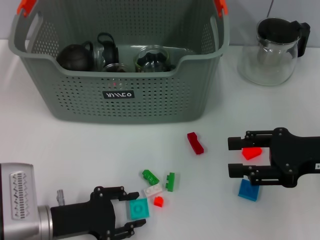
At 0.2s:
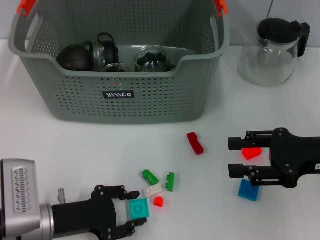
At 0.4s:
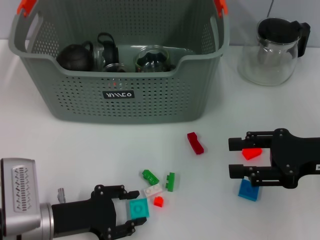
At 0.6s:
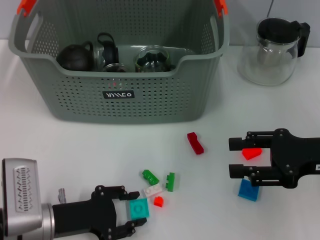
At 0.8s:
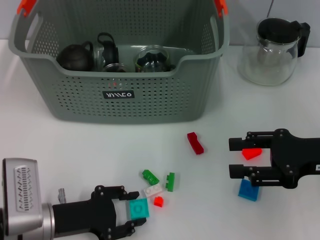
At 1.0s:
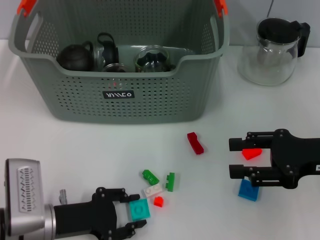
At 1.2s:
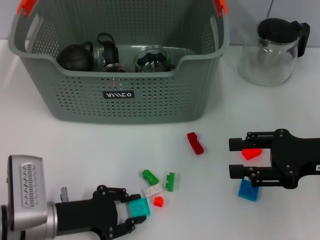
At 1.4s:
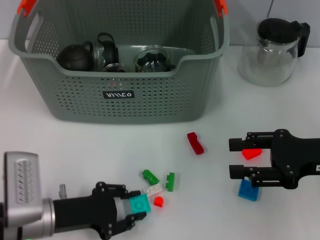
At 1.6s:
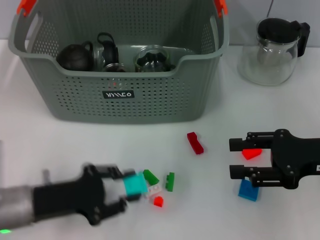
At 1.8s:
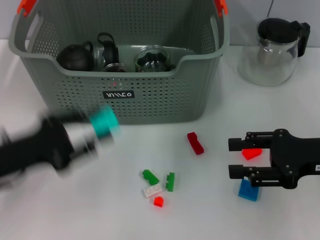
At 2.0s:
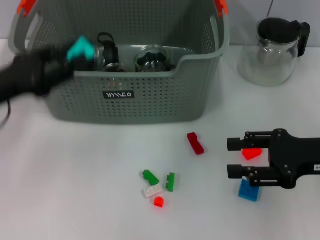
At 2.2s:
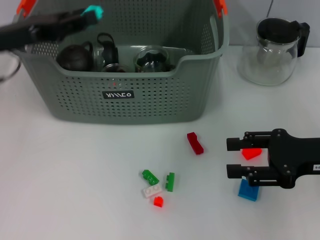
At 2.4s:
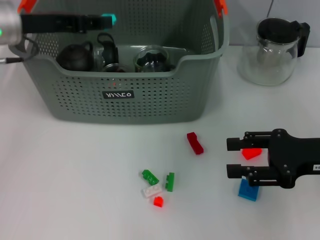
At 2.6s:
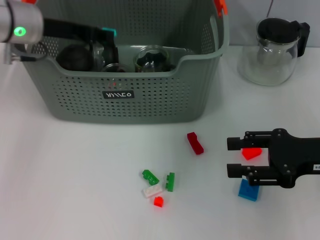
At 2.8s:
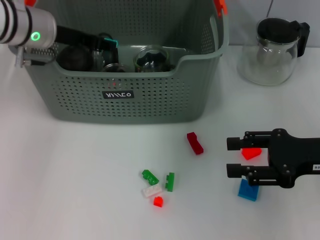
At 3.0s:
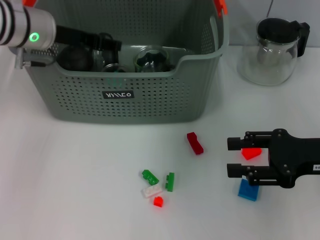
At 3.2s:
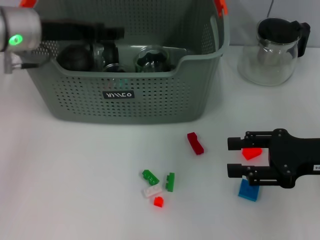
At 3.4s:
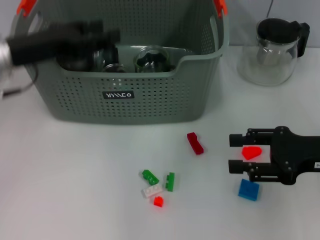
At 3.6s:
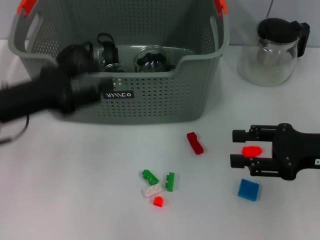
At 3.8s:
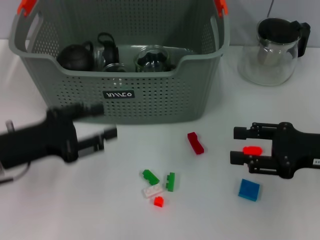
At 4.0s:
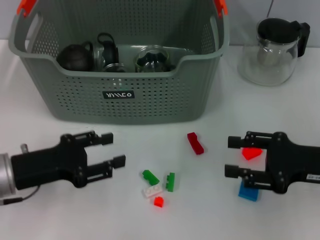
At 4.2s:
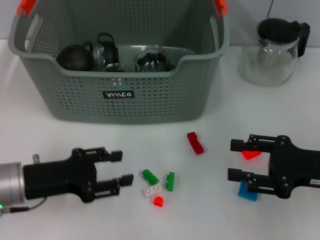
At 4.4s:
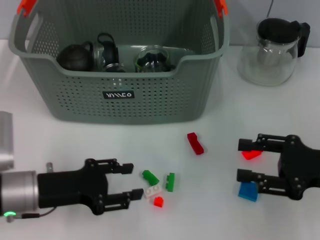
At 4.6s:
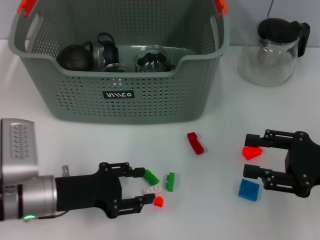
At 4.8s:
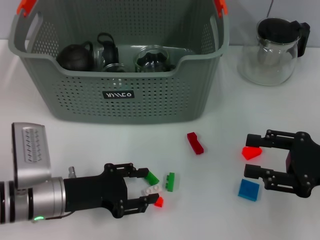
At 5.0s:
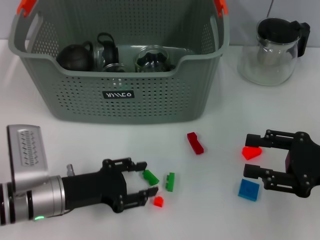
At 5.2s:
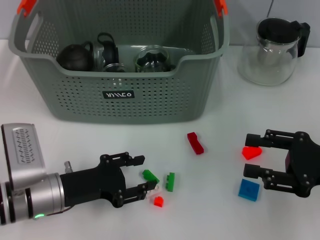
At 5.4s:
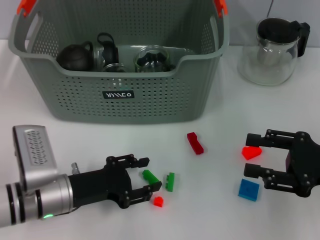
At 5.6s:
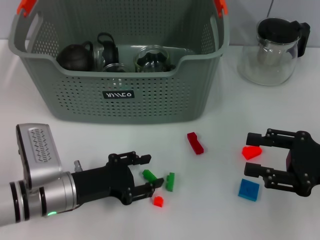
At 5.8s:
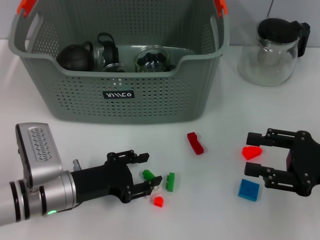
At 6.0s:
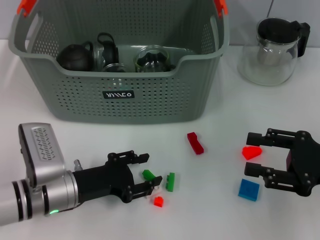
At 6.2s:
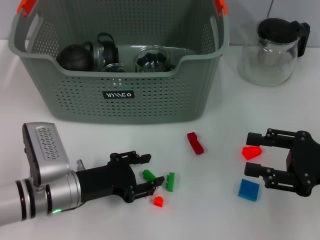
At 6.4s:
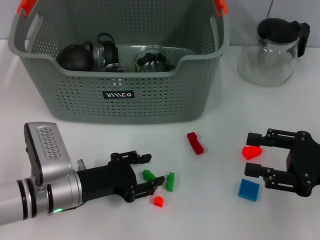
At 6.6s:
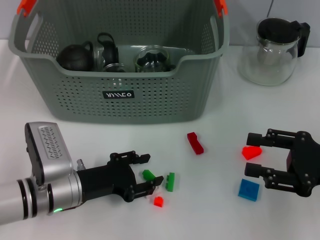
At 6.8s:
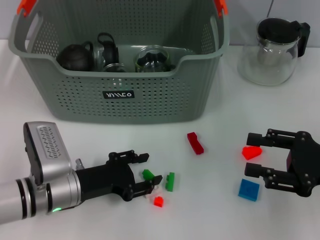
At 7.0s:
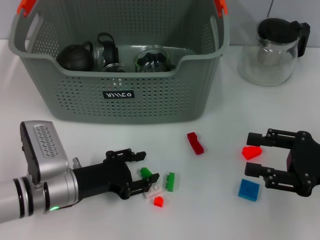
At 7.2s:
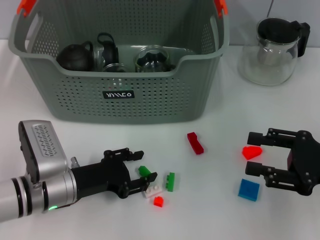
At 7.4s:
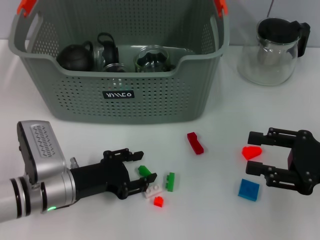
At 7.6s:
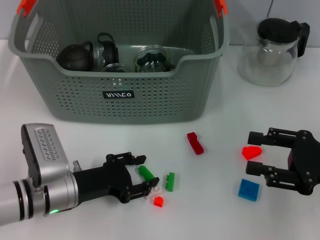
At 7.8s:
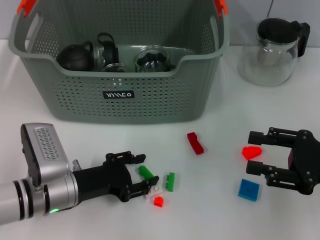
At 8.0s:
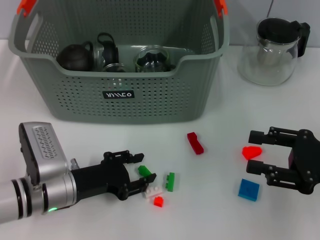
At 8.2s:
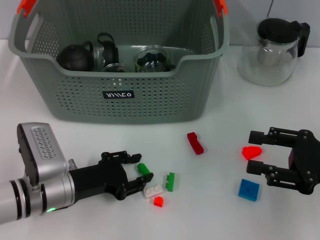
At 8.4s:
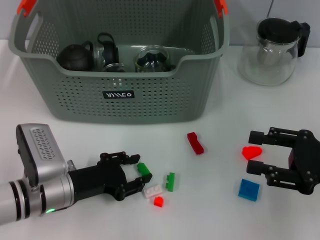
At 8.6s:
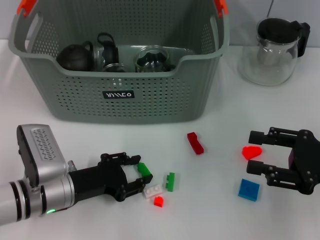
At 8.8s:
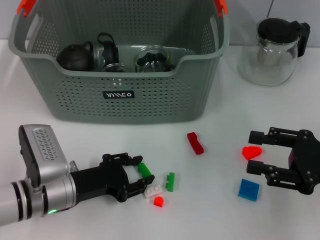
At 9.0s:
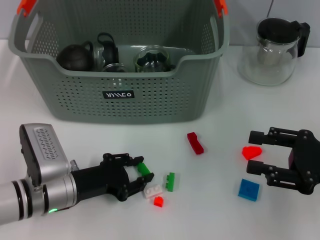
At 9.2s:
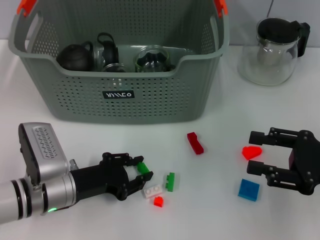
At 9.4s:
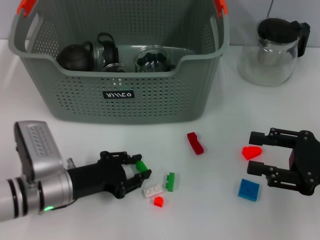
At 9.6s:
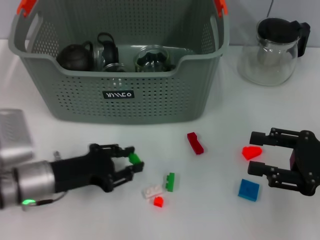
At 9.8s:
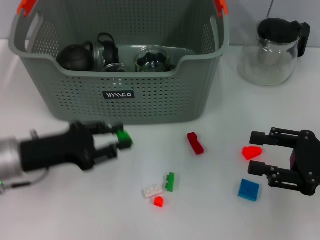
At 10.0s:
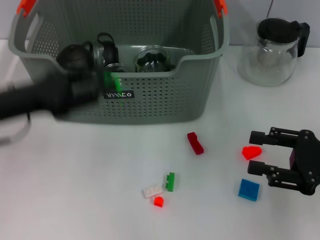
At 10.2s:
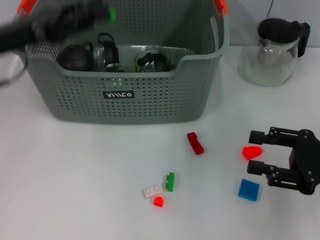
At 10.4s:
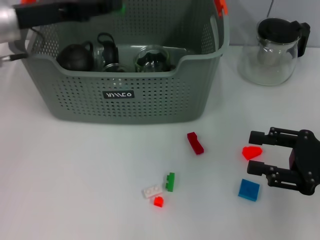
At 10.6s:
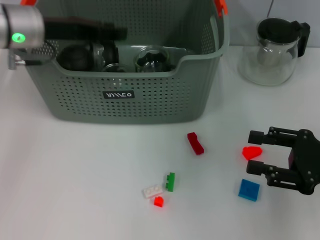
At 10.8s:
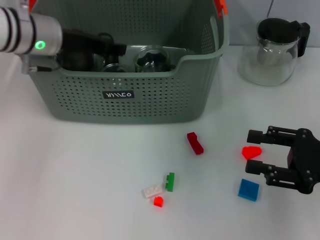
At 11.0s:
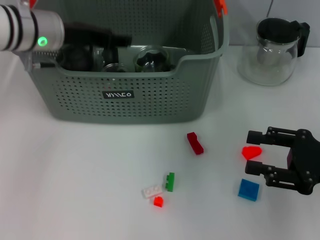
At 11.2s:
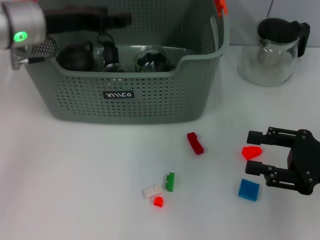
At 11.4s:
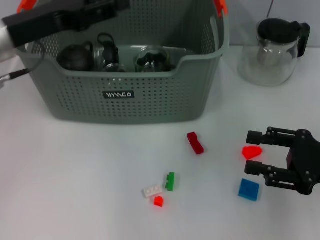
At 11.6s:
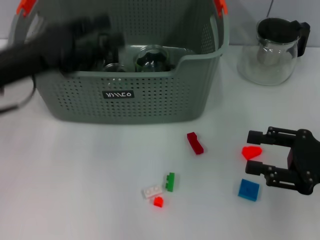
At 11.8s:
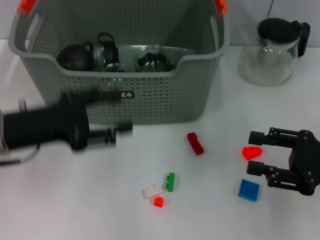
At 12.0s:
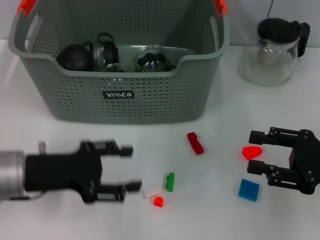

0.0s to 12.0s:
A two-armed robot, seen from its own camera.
Task of the whole recording: pick up the teacup on the table and place it into the storage bin, pick up the block on the table and place it into the storage bin.
Step, 1.4s to 3.4s: Place the light blue block in the storage box with left gripper.
Step, 3.6s to 9.2s: Grasp the green block with left gripper.
Step, 9.4s to 11.2s: Place the green block in the storage box with left gripper.
0.0s to 1.6s: There are only small adjustments of the grippers.
1.6s to 3.0s: The left gripper goes approximately 25 cm forward and upward.
3.0s to 4.4s: The left gripper goes some 20 cm backward and downward.
4.4s to 6.0s: The left gripper changes place by roughly 5 cm.
6.0s to 9.0s: Both grippers stay put.
9.0s to 10.4s: The left gripper moves upward and forward, approximately 25 cm.
10.4s to 12.0s: The left gripper is displaced backward and downward by approximately 15 cm, and opens its fingers.

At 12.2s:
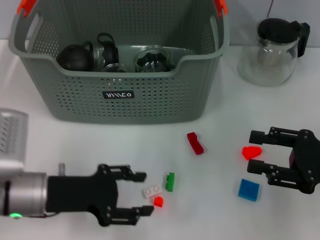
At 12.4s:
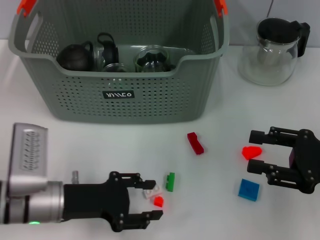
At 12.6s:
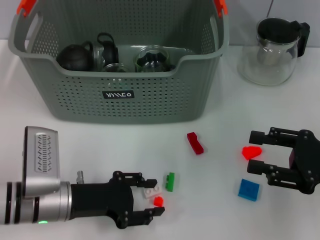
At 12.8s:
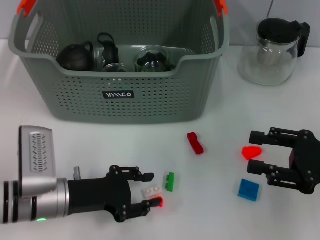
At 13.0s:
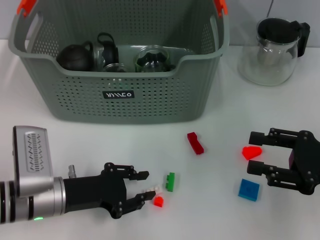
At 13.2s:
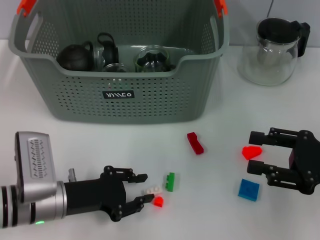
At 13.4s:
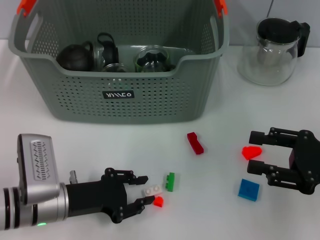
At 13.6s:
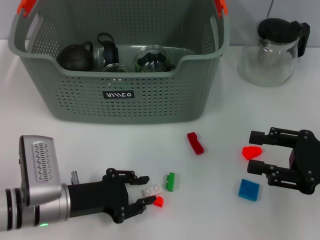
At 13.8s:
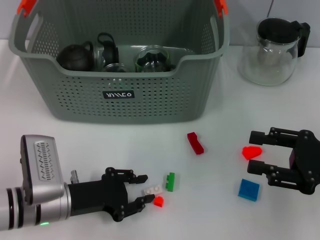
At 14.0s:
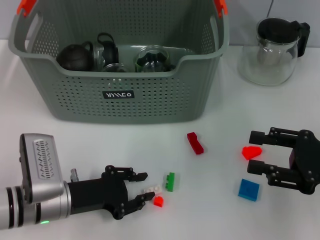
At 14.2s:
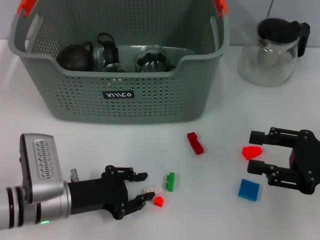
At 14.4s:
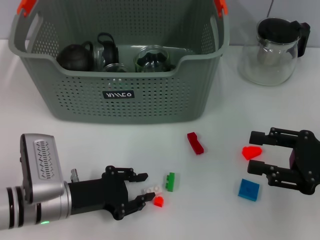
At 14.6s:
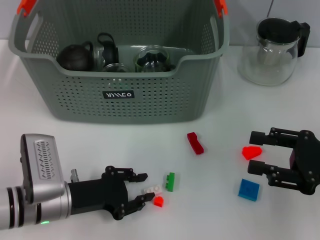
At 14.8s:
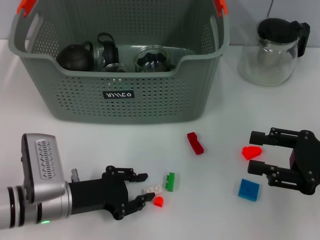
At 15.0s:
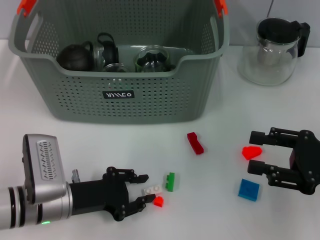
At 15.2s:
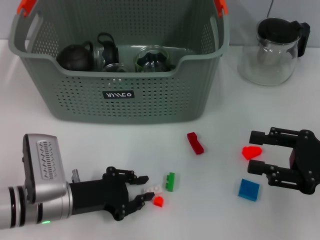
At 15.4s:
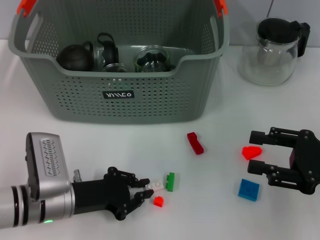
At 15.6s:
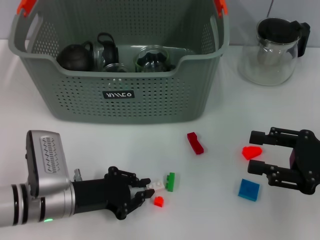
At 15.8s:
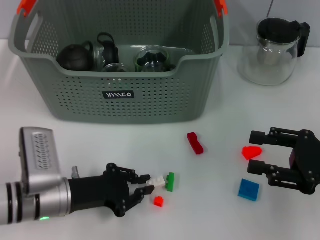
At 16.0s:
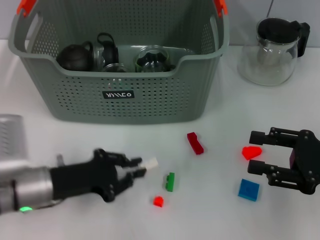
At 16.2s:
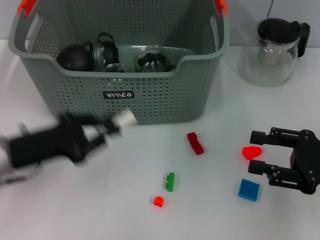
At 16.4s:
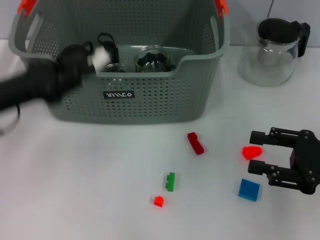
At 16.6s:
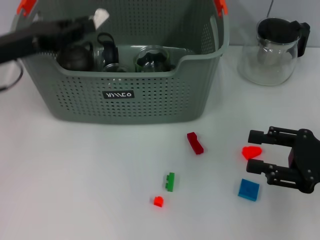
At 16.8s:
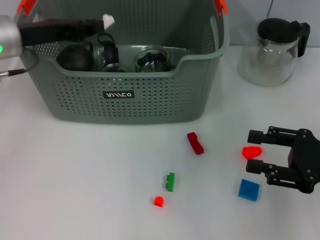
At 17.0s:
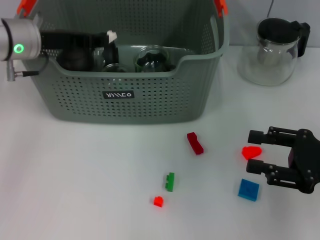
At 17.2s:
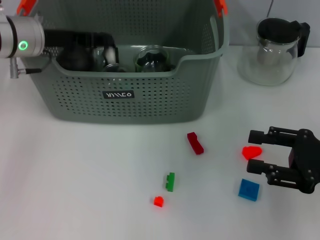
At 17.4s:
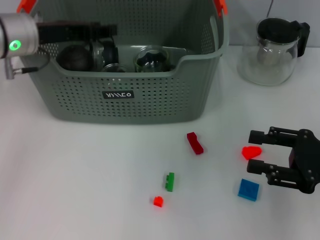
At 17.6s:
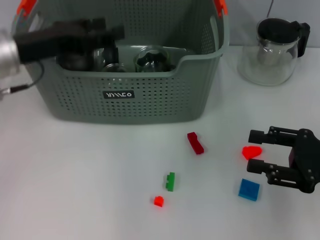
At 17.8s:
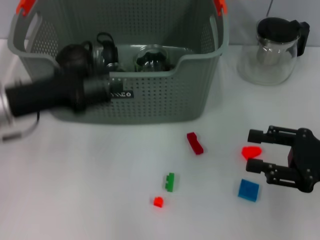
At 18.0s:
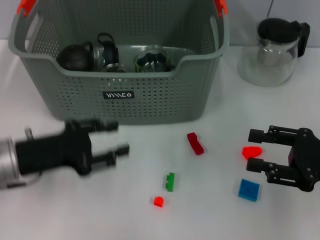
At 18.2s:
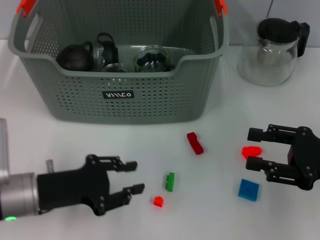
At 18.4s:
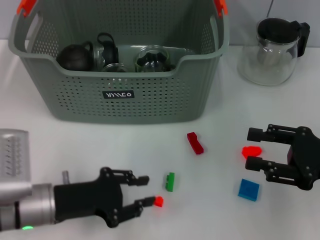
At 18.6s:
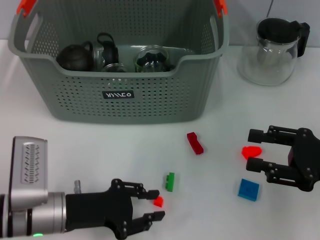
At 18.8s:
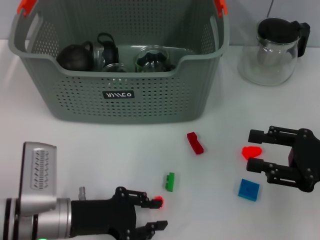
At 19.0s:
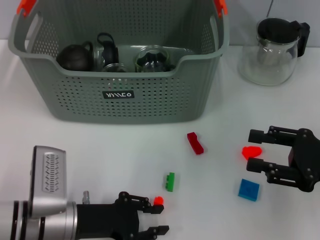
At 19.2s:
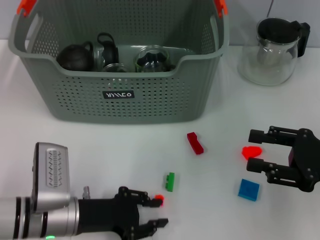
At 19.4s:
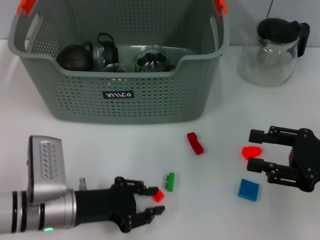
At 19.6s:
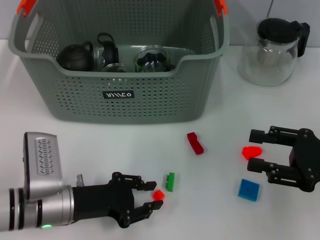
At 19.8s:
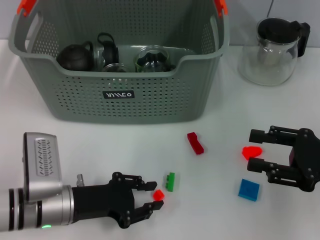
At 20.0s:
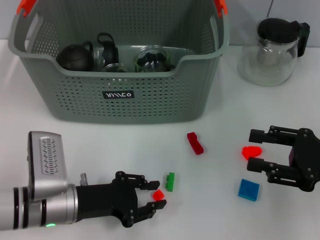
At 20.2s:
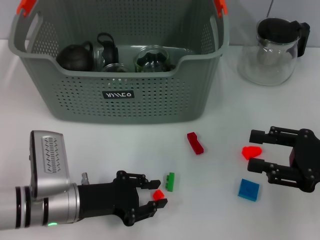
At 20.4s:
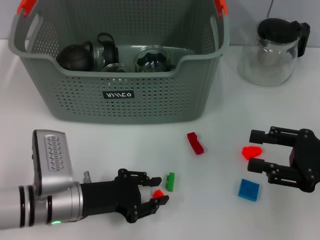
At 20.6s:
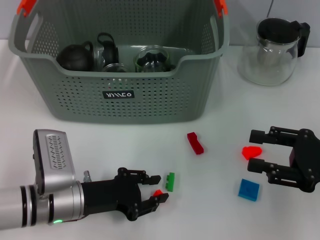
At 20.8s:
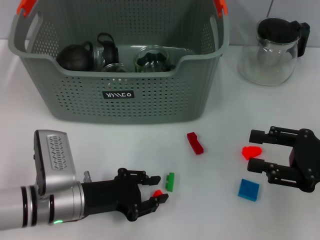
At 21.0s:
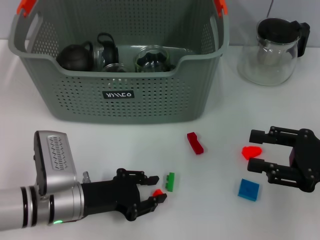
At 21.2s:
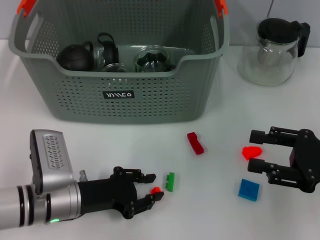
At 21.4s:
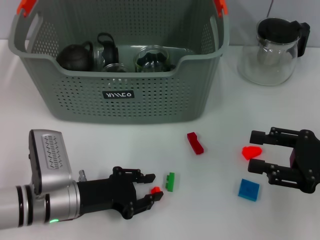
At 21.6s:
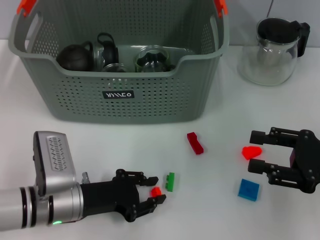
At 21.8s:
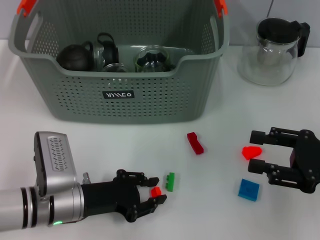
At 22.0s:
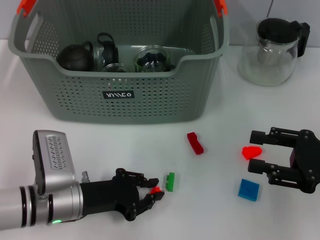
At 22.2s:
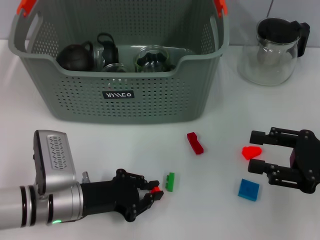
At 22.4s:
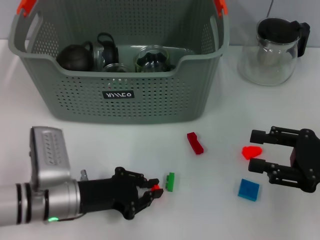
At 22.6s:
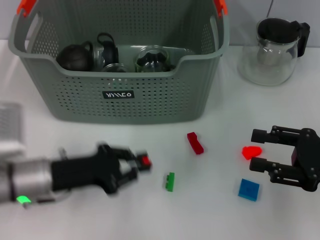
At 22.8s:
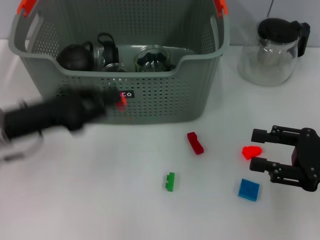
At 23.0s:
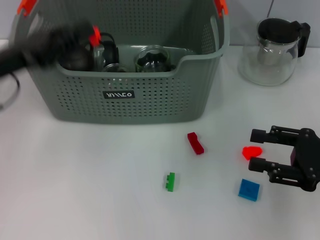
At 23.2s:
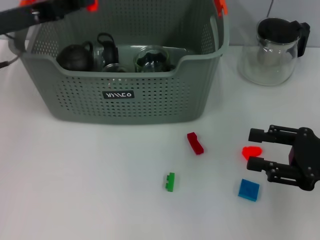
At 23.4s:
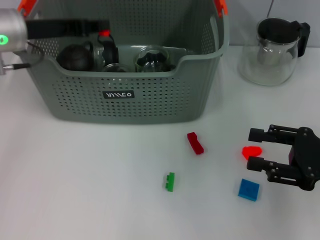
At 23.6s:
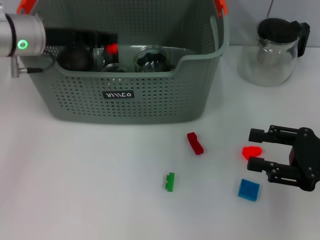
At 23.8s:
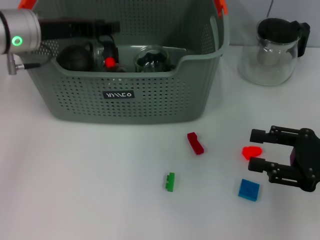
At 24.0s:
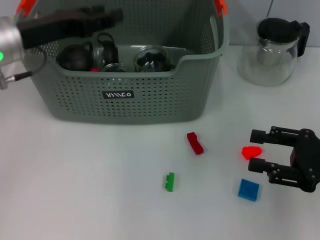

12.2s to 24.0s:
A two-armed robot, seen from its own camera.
Task of the whole recording: pick up the teacup on the table and place it into the storage bin, pick up the block on the table and place it into the storage bin.
Step, 12.2s to 15.2s: Grasp the white block with left gripper.
Step, 15.6s to 17.2s: Place the white block in the storage box with left gripper.
Step, 17.6s to 22.0s: Grasp the orange block with left gripper.
Step, 22.4s to 23.8s: Place the orange block in the storage box with left gripper.
12.2s to 13.6s: The left gripper heads downward, covering some 5 cm, and closes its fingers.
13.6s to 15.2s: Neither gripper changes place.
15.2s to 16.6s: The left gripper travels upward, forward and to the left by approximately 20 cm.
16.6s to 18.2s: The left gripper goes approximately 15 cm downward and backward, and opens.
18.2s to 19.6s: The left gripper moves some 5 cm.
19.6s to 21.0s: There are only small adjustments of the grippers.
21.0s to 22.6s: The left gripper moves approximately 5 cm.
22.6s to 24.0s: The left gripper shifts approximately 20 cm upward and forward, and opens.
